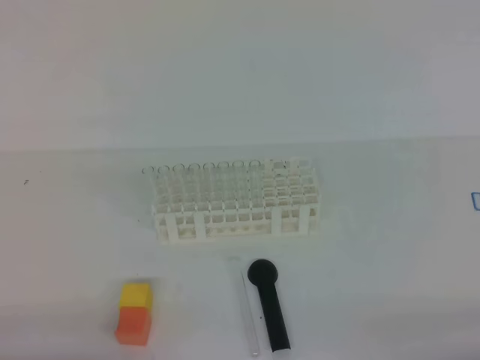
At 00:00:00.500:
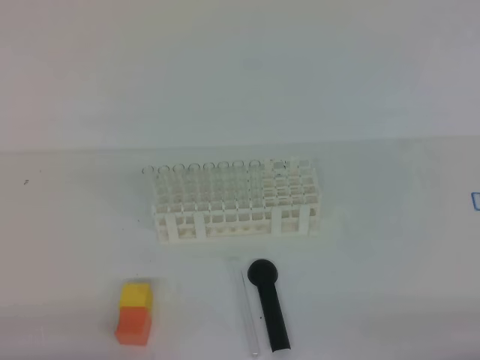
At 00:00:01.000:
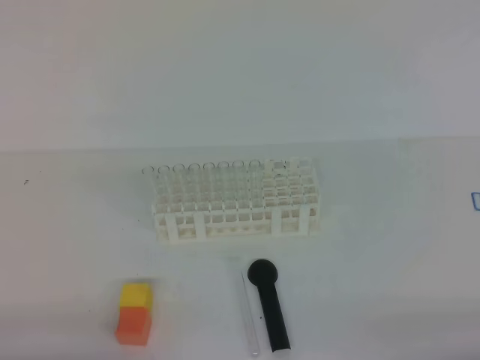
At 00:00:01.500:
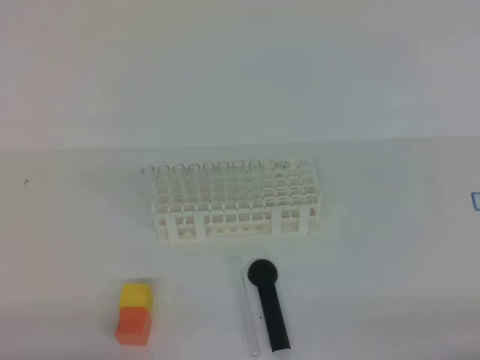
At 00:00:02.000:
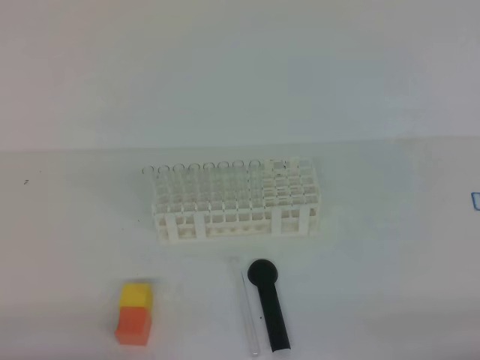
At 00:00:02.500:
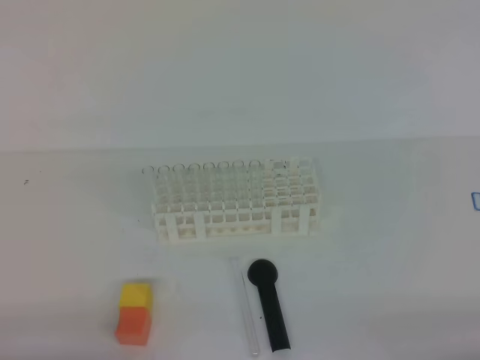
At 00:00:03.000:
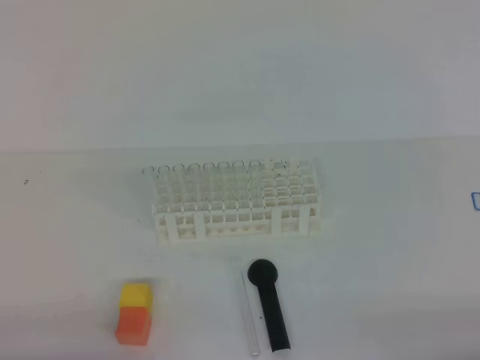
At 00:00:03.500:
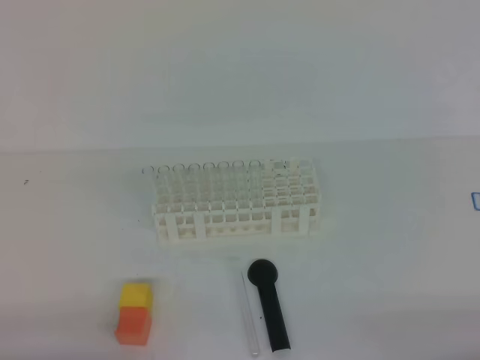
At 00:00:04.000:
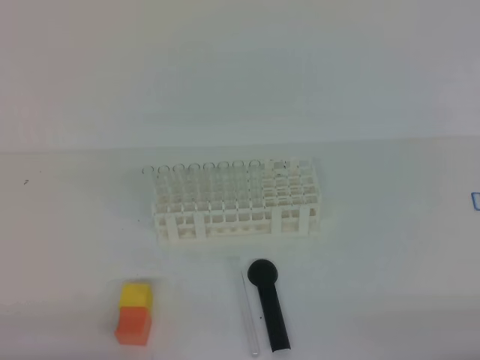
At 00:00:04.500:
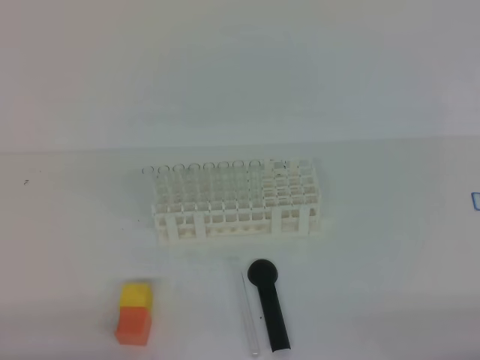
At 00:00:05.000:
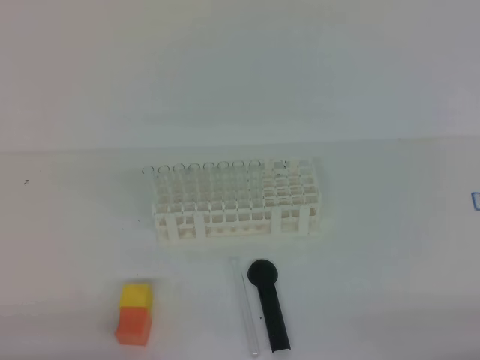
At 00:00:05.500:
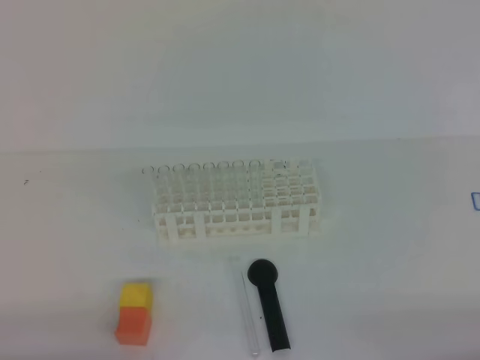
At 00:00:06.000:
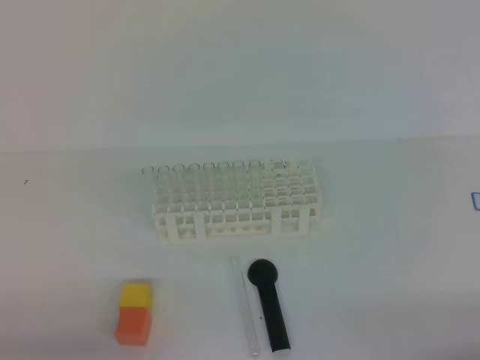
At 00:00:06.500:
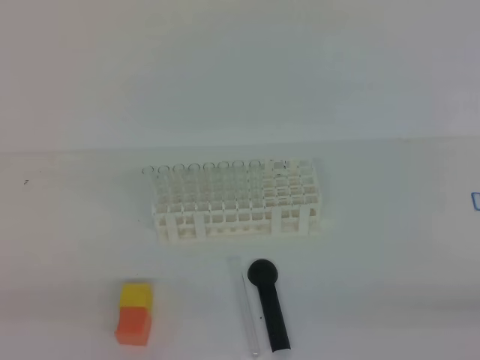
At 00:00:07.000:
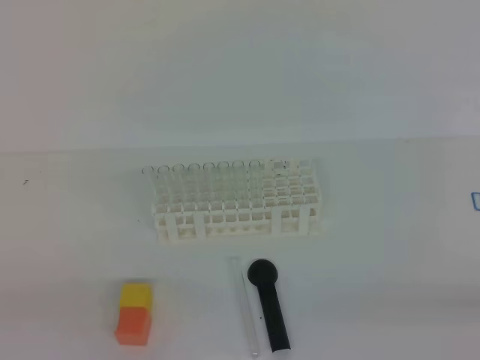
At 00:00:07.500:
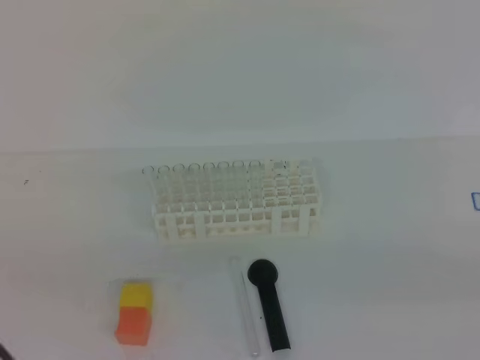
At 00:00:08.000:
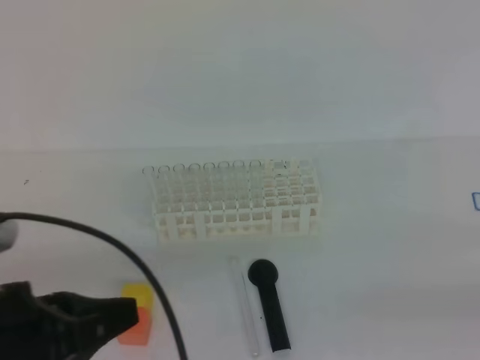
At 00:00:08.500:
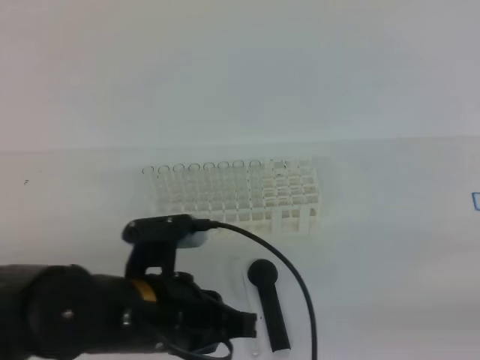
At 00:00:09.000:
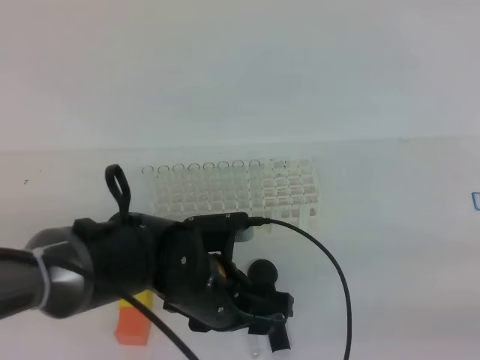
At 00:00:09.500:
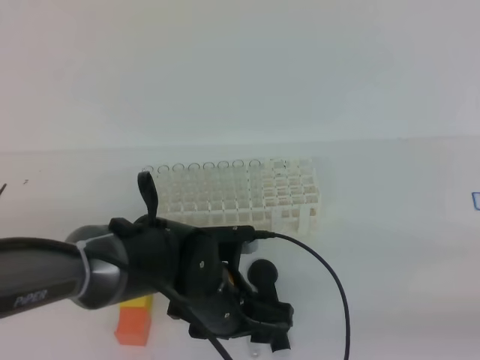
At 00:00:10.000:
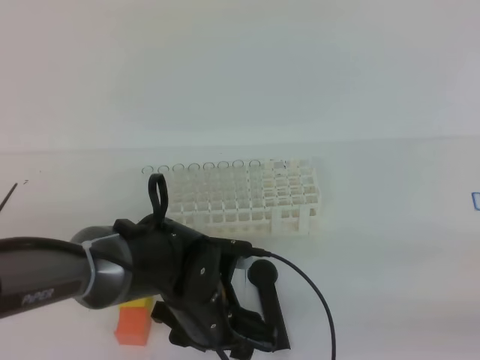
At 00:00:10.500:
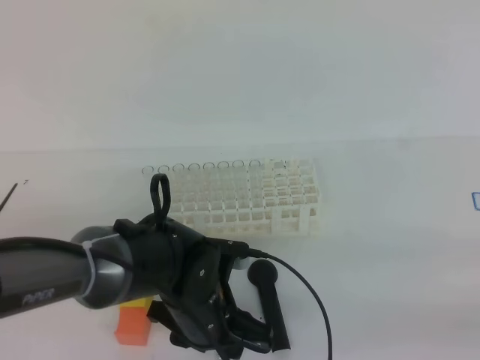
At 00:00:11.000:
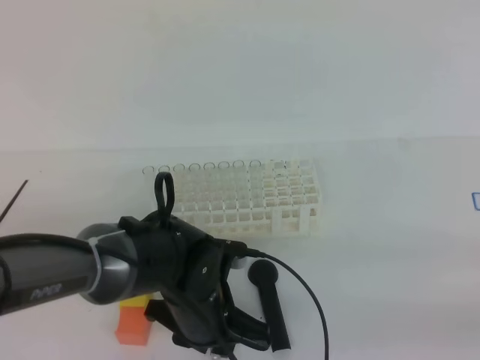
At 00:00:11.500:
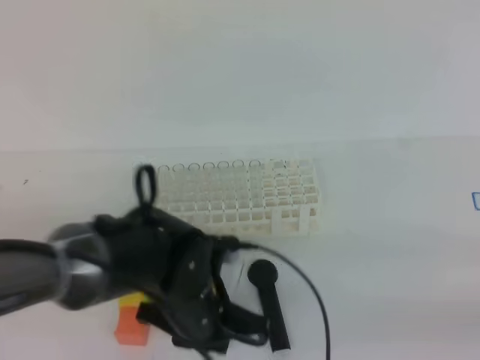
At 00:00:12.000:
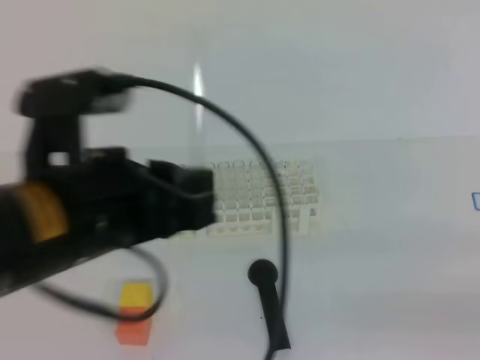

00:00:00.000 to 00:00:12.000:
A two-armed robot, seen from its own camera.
00:00:00.000 to 00:00:04.000: Neither gripper changes place.
00:00:06.000 to 00:00:08.000: The right gripper goes approximately 10 cm upward, while the left gripper is displaced upward, to the right and forward by some 15 cm.
00:00:08.000 to 00:00:10.000: The right gripper opens up, while the left gripper heads to the right, downward and forward, covering some 25 cm, and opens its fingers.
00:00:10.000 to 00:00:12.000: The left gripper moves upward, roughly 20 cm, and closes its fingers.

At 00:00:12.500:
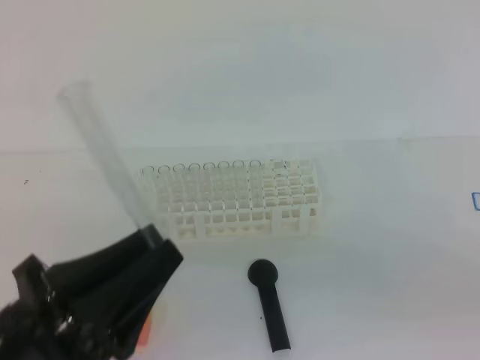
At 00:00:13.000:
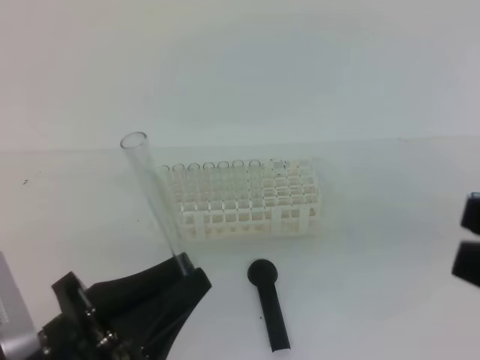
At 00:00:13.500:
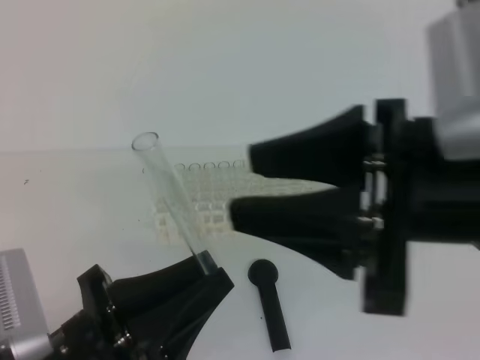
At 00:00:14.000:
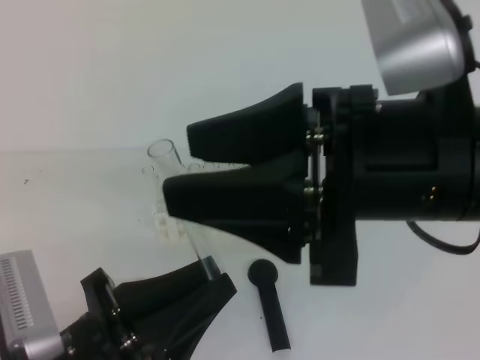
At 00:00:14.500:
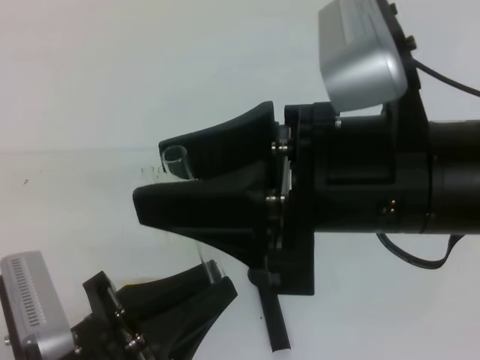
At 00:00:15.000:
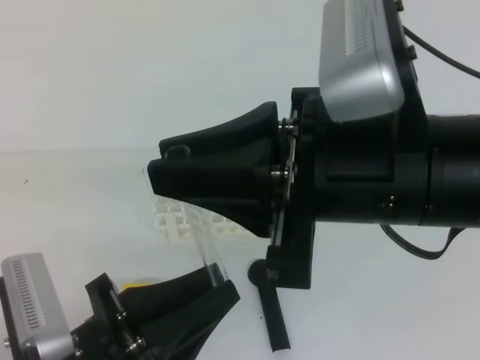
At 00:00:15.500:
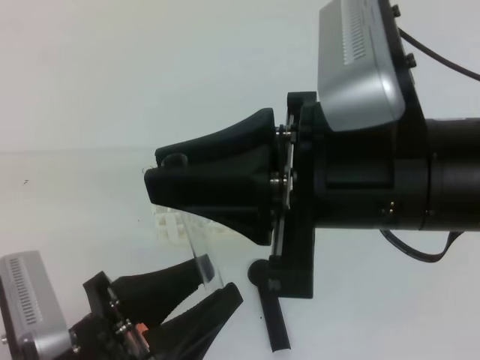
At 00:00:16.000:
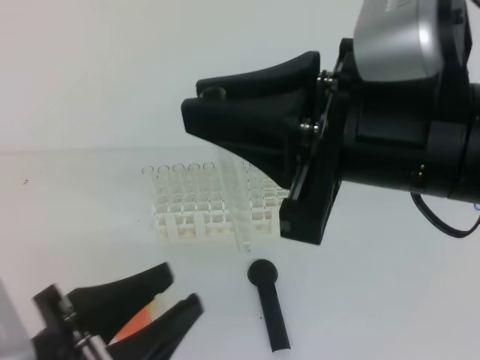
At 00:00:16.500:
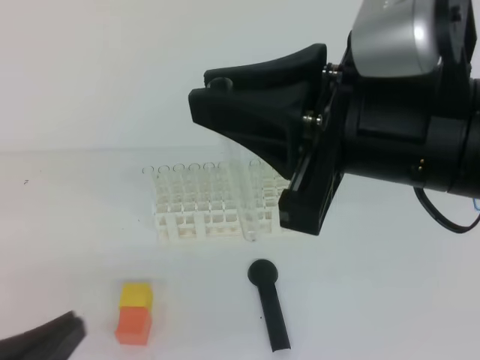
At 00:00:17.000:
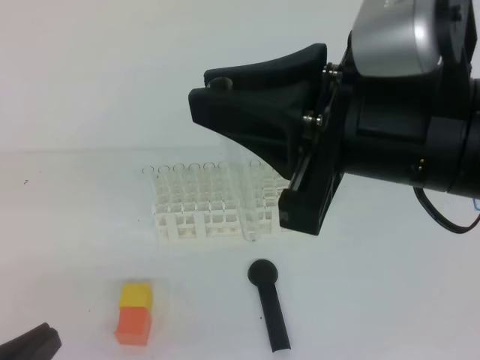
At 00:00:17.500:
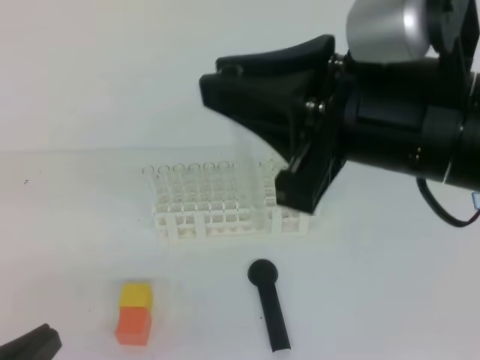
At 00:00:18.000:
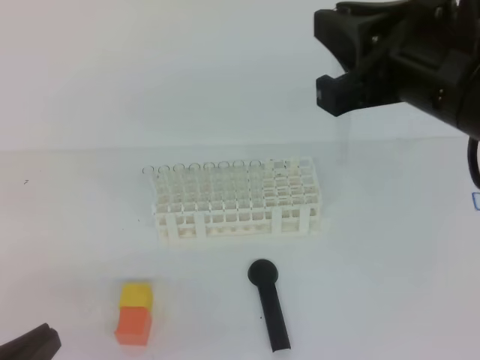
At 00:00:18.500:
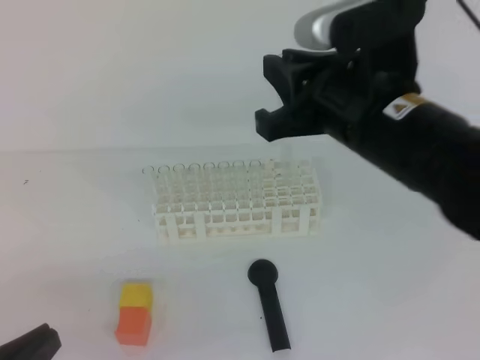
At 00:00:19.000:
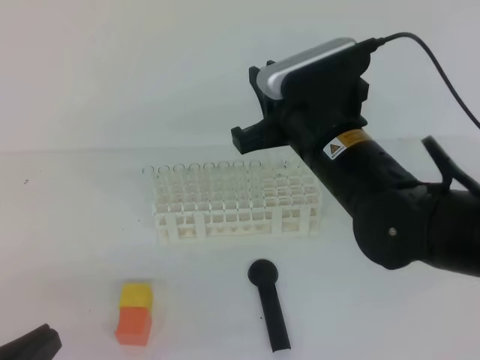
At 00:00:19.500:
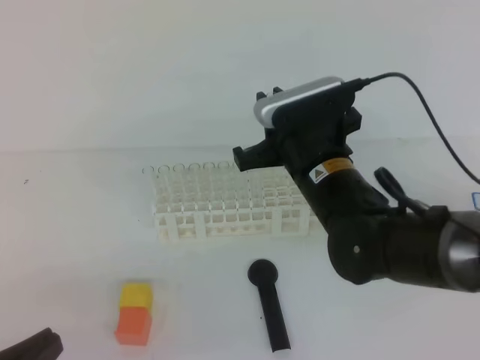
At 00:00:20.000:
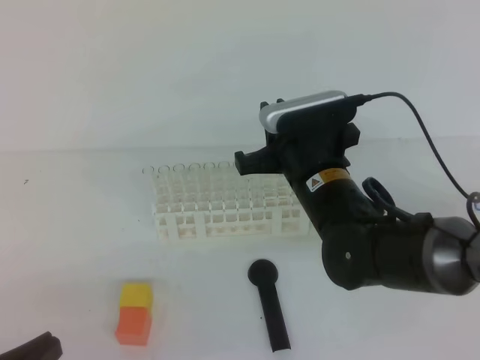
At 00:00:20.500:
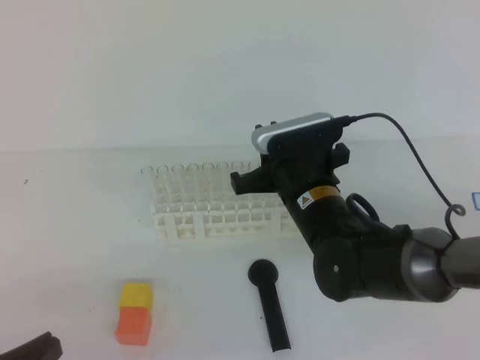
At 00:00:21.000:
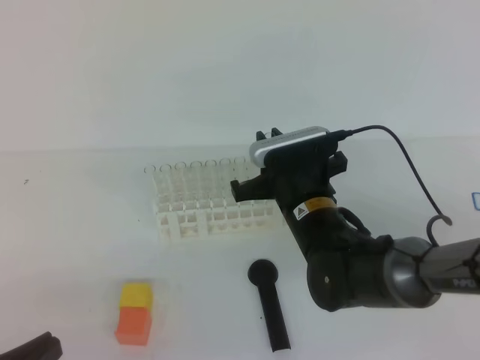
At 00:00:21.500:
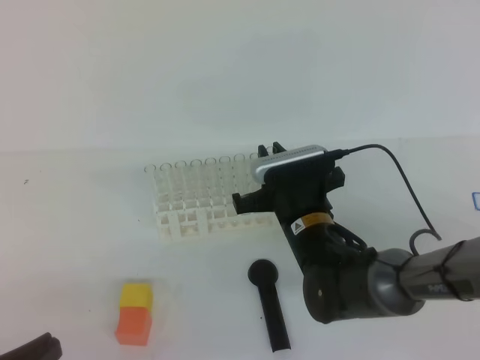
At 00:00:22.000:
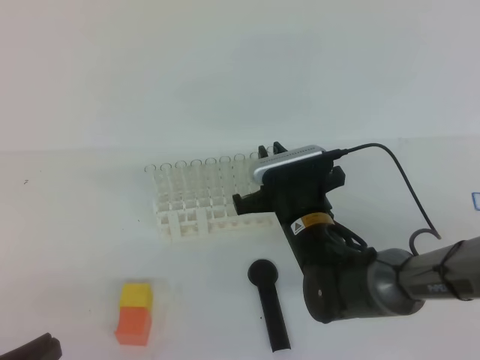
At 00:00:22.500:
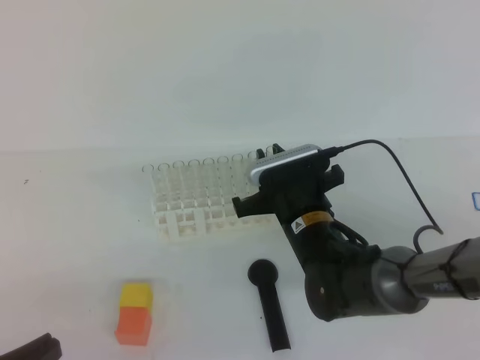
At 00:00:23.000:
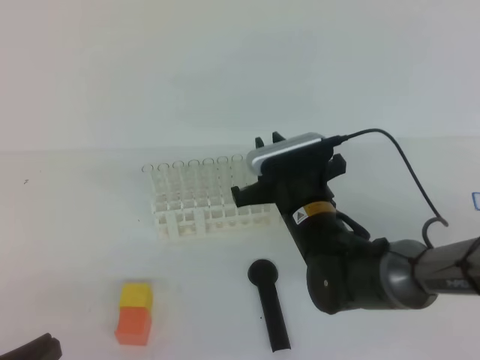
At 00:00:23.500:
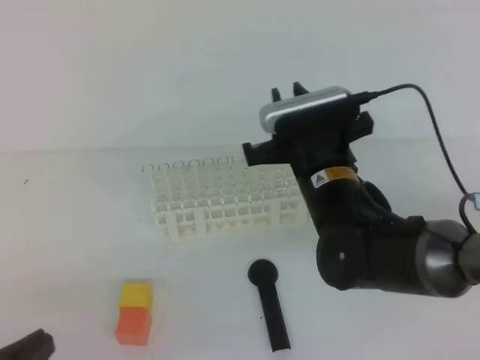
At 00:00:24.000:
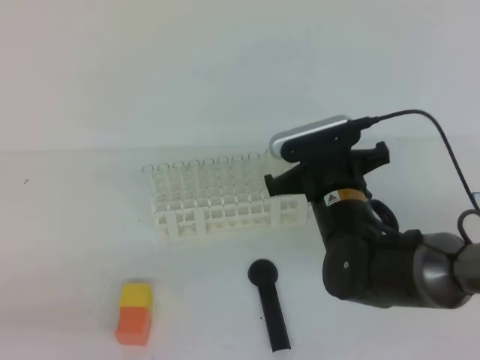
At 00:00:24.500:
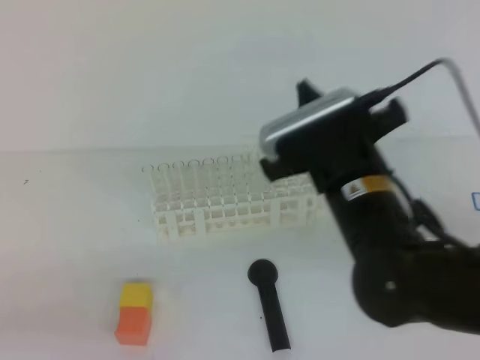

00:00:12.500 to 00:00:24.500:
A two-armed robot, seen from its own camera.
00:00:12.500 to 00:00:14.500: The right gripper heads to the left and forward, covering approximately 20 cm, and opens its fingers, while the left gripper moves about 5 cm.
00:00:14.500 to 00:00:16.500: The right gripper closes. The left gripper travels to the left by about 10 cm, and opens and closes again.
00:00:16.500 to 00:00:18.500: The right gripper heads forward and downward, covering approximately 10 cm.
00:00:18.500 to 00:00:20.500: The right gripper moves downward and forward, some 15 cm.
00:00:20.500 to 00:00:22.500: The right gripper goes roughly 5 cm downward.
00:00:22.500 to 00:00:24.500: The right gripper goes roughly 10 cm upward and backward, and closes up.

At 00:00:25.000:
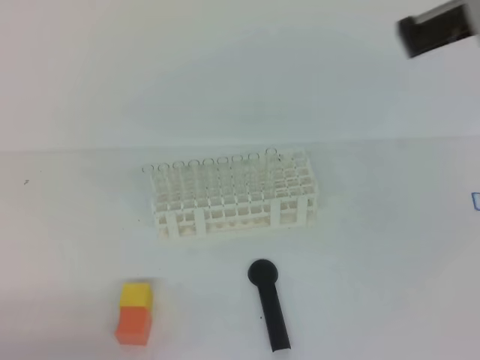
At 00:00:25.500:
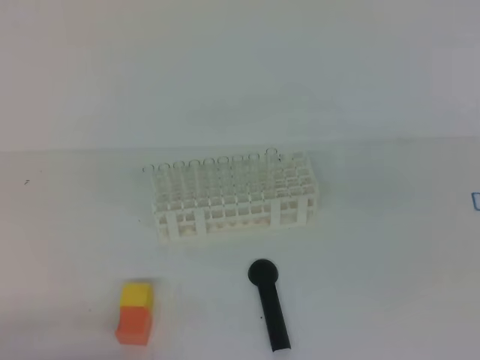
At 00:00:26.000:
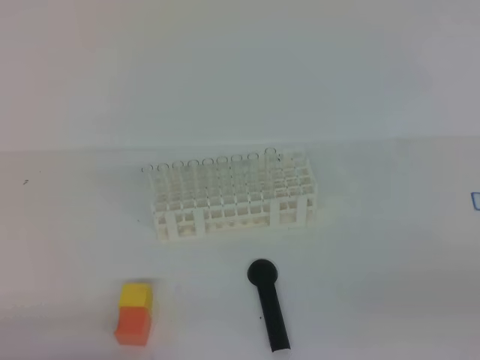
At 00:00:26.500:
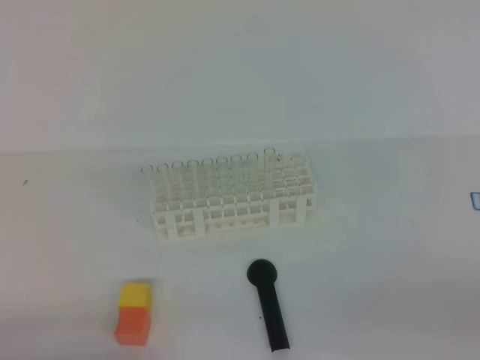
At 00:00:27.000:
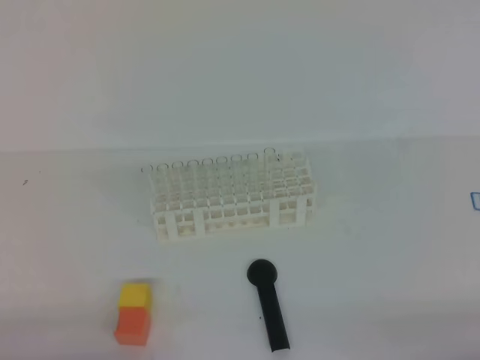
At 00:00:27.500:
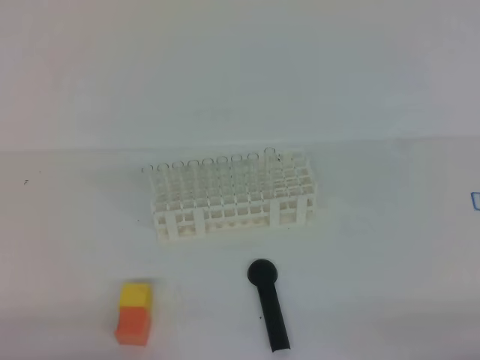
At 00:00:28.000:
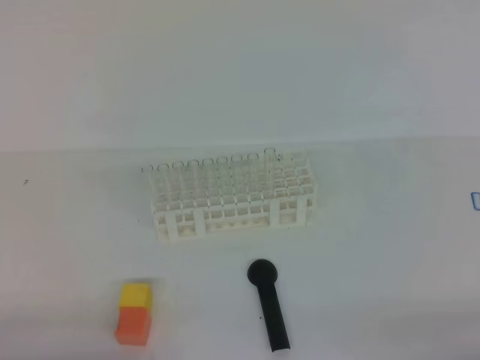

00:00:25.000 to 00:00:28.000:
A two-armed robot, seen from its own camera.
00:00:25.000 to 00:00:26.500: The right gripper goes approximately 30 cm downward, to the right and backward.
